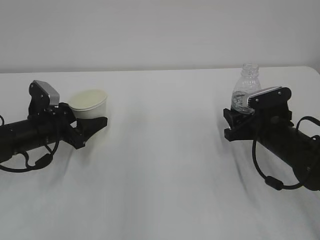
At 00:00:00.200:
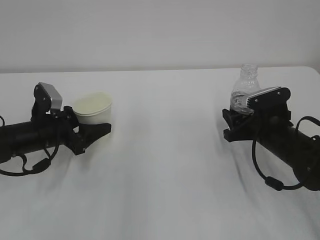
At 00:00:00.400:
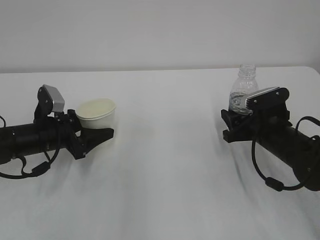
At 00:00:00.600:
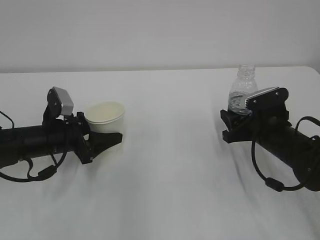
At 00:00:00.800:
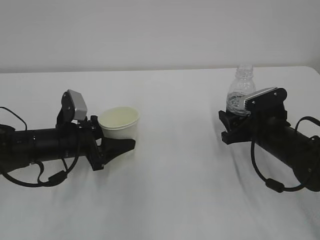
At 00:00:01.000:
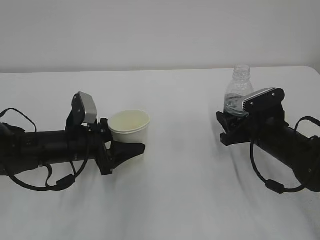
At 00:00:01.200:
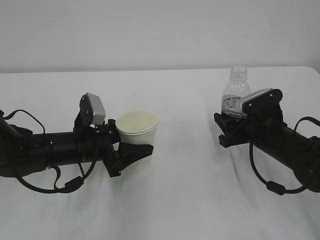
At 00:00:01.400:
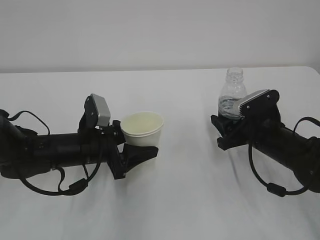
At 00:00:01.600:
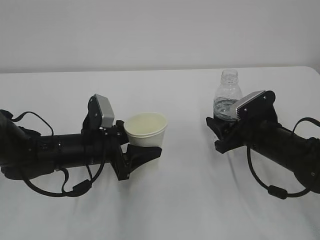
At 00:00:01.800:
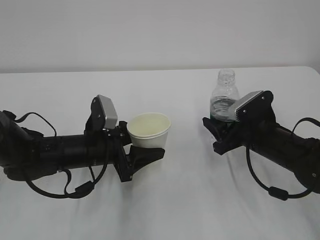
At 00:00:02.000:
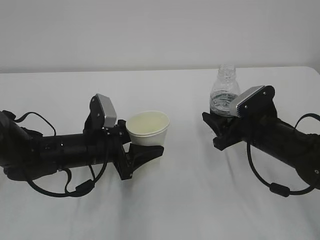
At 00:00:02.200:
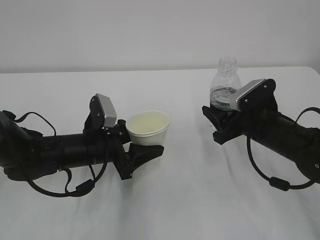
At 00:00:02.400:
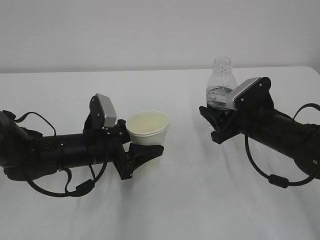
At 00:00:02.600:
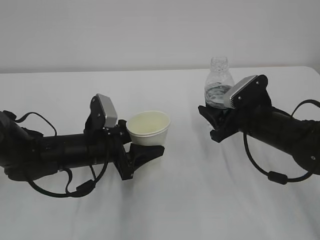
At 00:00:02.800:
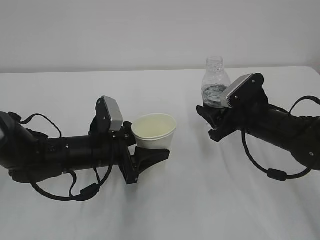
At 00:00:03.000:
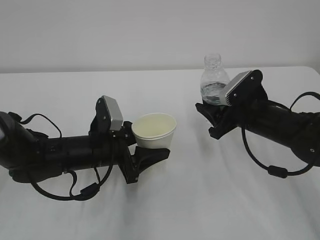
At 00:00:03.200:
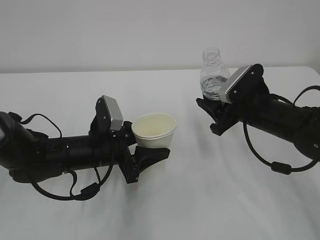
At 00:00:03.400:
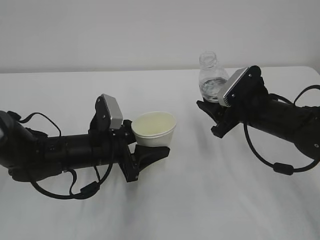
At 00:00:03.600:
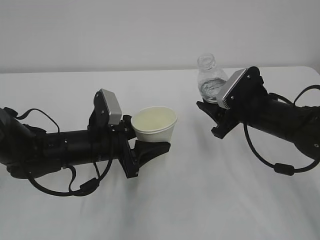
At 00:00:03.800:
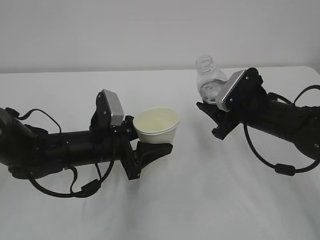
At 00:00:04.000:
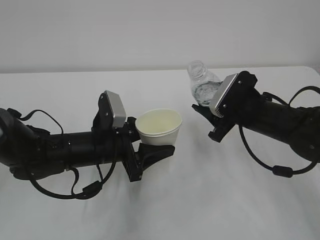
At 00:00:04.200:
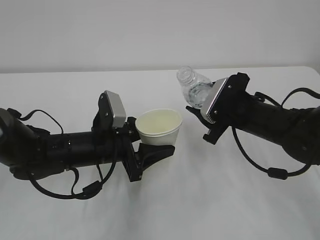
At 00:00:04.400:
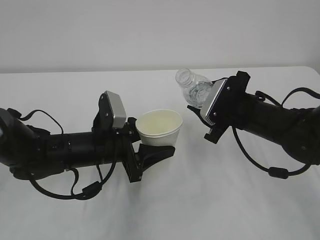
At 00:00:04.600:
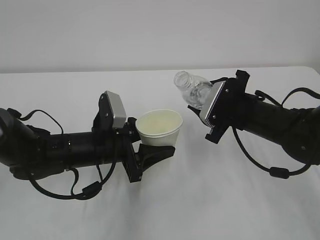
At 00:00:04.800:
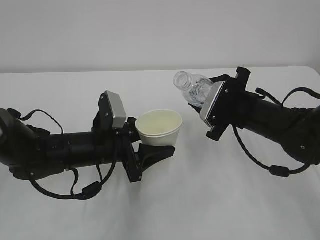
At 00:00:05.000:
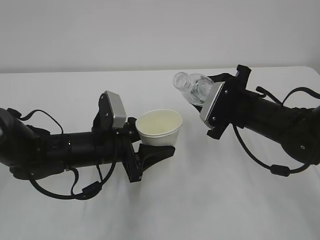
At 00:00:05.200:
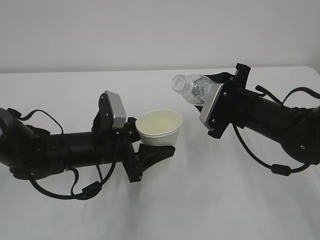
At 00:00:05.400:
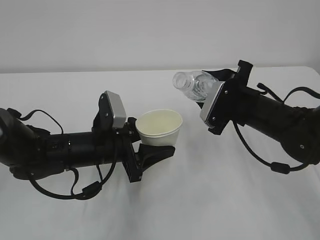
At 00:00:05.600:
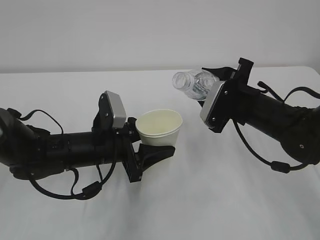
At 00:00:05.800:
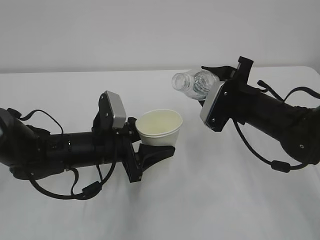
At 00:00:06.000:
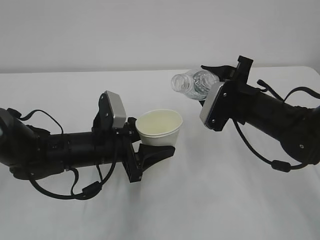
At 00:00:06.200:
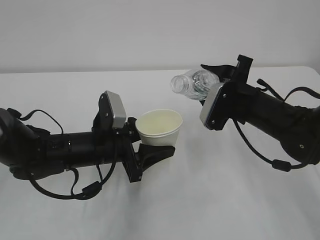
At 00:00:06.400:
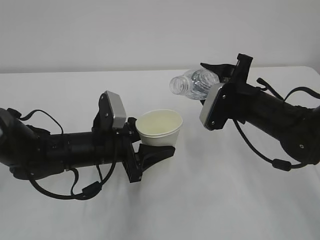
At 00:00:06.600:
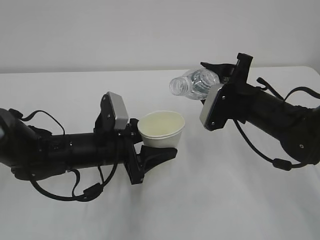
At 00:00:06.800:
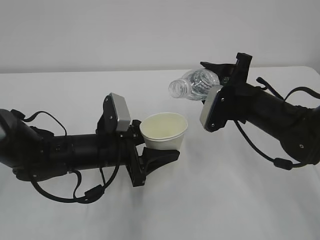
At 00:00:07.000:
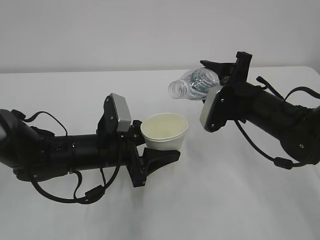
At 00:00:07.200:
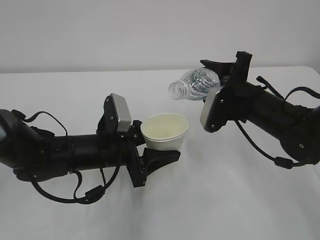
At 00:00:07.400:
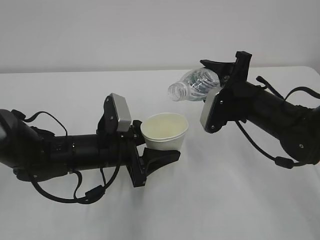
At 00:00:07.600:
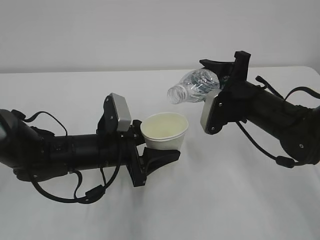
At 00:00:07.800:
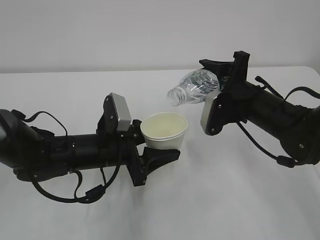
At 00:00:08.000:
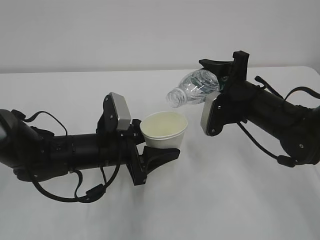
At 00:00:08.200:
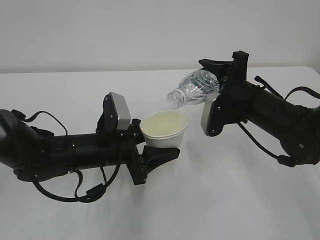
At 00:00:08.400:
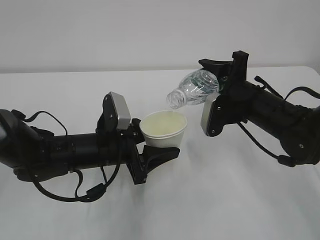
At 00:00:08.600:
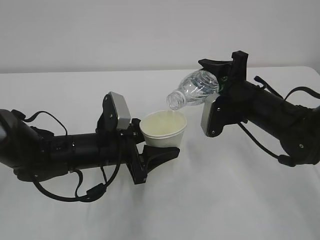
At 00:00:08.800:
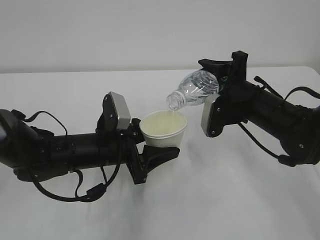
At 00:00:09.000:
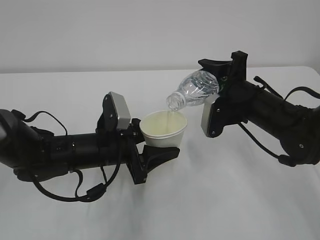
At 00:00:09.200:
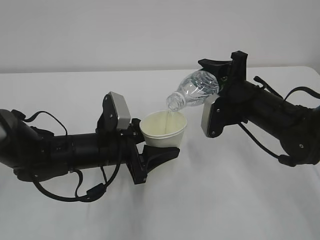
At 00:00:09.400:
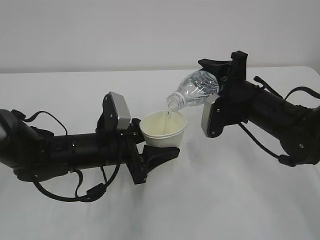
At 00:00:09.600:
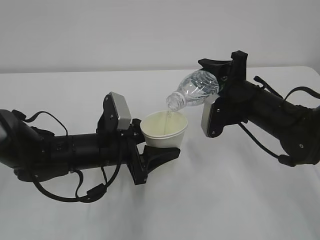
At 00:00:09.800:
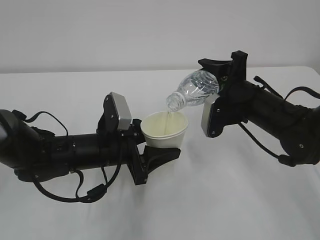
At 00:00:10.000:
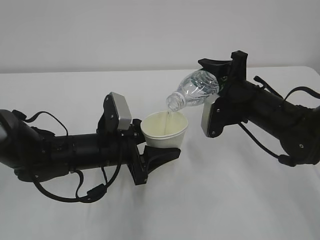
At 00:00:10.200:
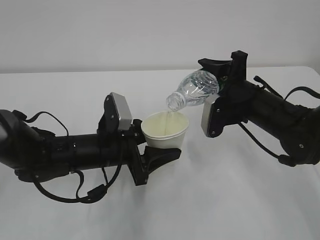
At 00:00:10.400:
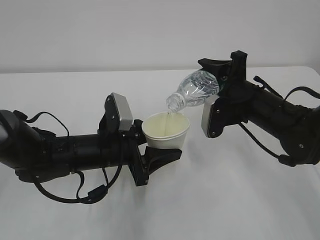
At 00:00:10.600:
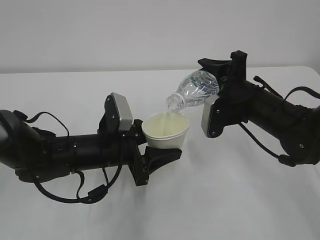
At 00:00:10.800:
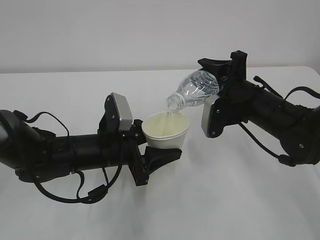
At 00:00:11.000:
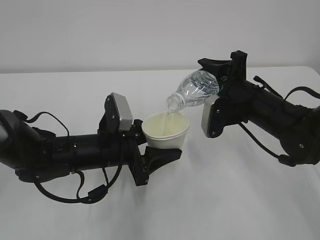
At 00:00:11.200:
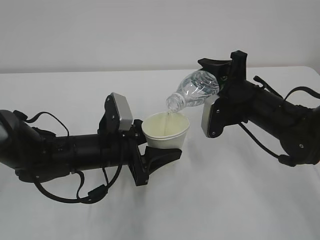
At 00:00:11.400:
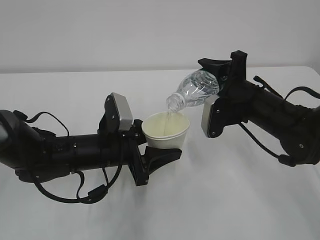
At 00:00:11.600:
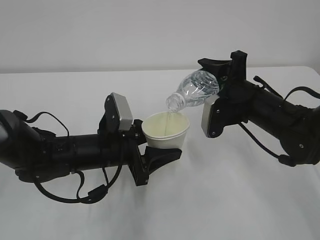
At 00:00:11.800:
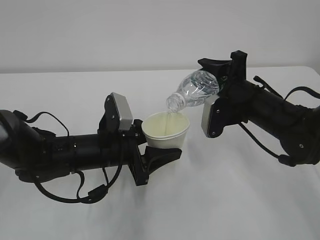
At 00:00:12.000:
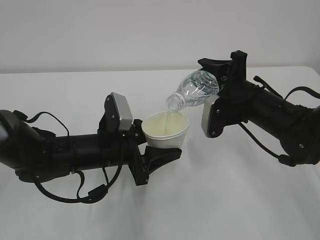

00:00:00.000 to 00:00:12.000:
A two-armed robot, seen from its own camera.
00:00:00.000 to 00:00:01.600: The left gripper shifts approximately 10 cm to the right.
00:00:01.600 to 00:00:03.000: The grippers move only a little.
00:00:06.000 to 00:00:07.600: The grippers stay close to where they were, moving slightly.
00:00:07.600 to 00:00:09.000: The grippers stay close to where they were, moving slightly.
00:00:09.000 to 00:00:12.000: Both grippers stay put.

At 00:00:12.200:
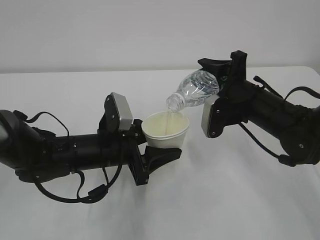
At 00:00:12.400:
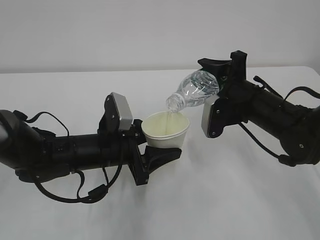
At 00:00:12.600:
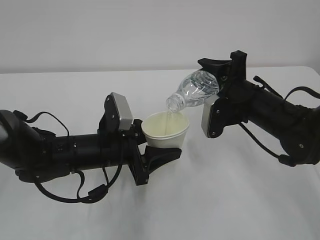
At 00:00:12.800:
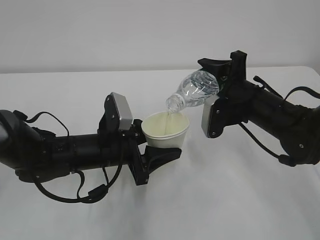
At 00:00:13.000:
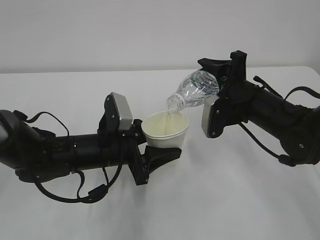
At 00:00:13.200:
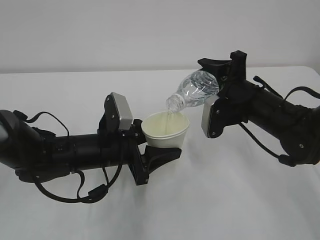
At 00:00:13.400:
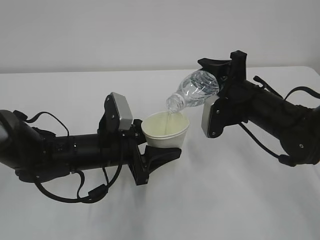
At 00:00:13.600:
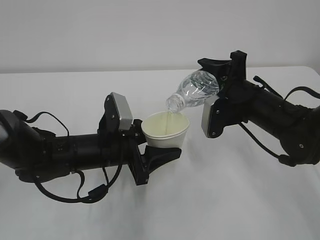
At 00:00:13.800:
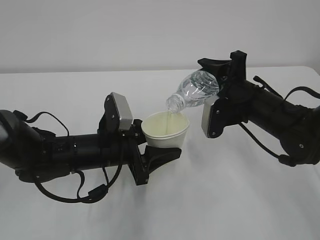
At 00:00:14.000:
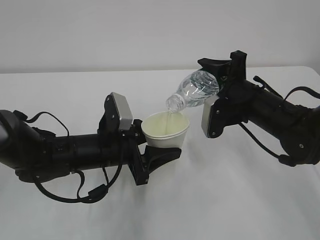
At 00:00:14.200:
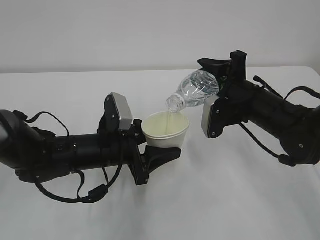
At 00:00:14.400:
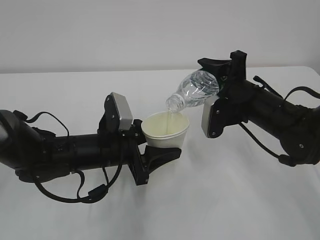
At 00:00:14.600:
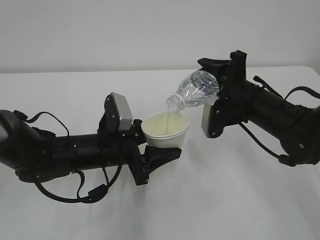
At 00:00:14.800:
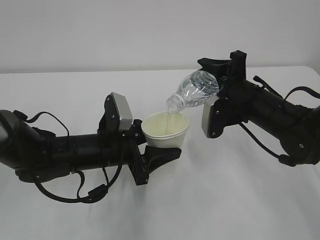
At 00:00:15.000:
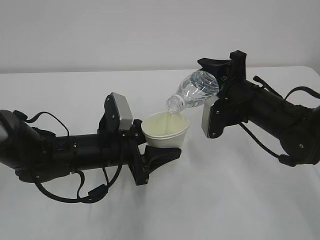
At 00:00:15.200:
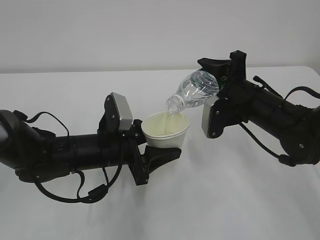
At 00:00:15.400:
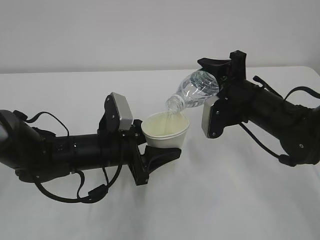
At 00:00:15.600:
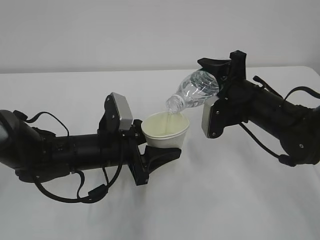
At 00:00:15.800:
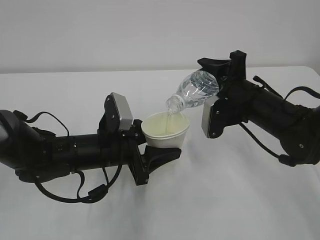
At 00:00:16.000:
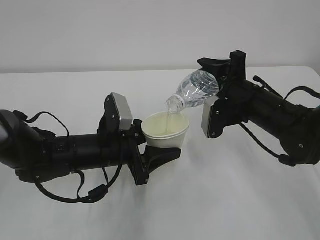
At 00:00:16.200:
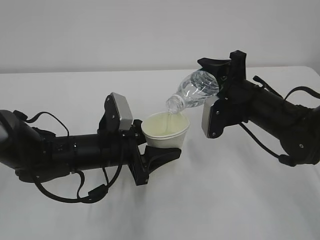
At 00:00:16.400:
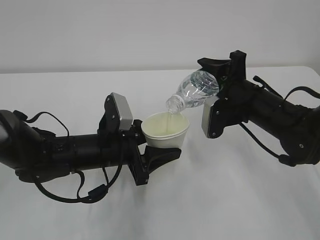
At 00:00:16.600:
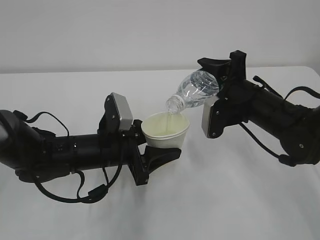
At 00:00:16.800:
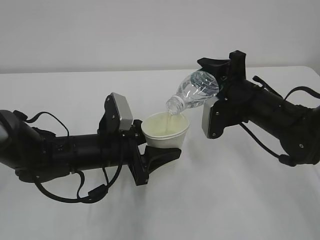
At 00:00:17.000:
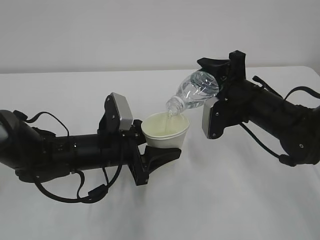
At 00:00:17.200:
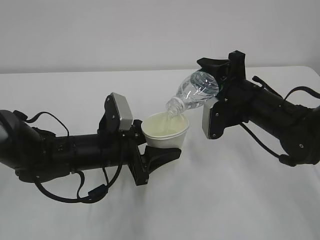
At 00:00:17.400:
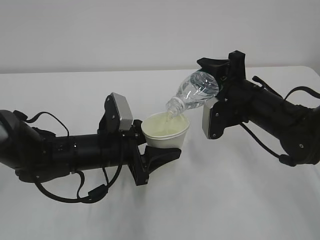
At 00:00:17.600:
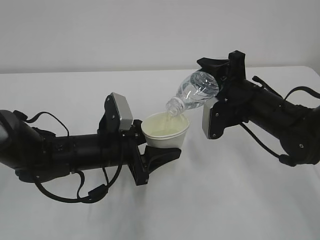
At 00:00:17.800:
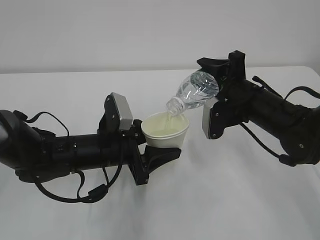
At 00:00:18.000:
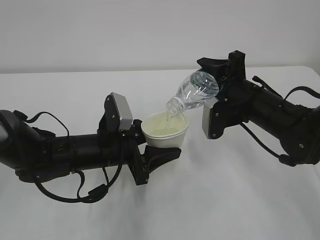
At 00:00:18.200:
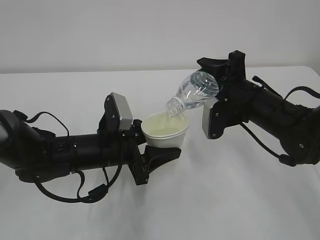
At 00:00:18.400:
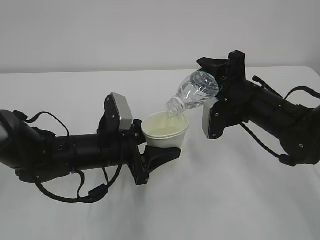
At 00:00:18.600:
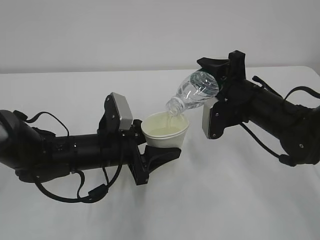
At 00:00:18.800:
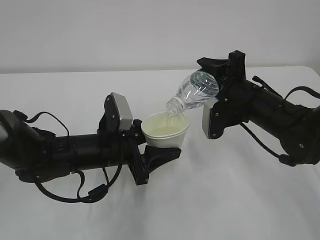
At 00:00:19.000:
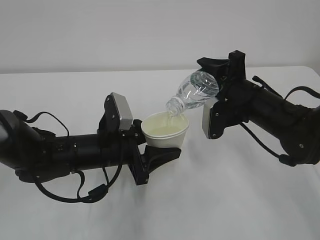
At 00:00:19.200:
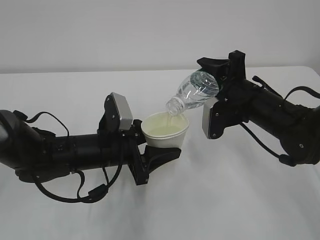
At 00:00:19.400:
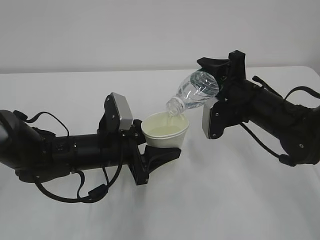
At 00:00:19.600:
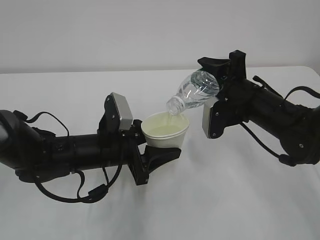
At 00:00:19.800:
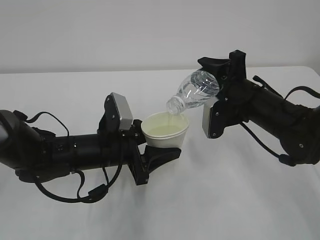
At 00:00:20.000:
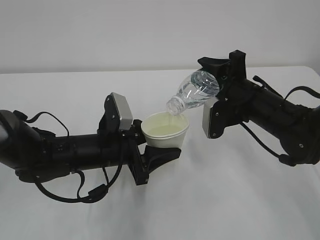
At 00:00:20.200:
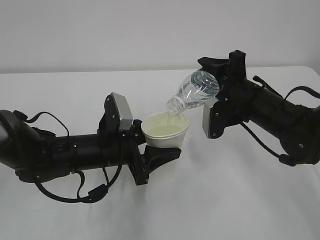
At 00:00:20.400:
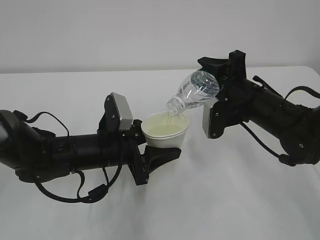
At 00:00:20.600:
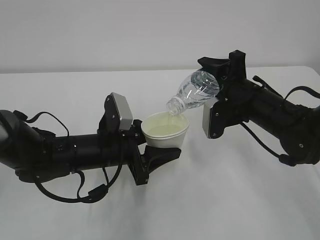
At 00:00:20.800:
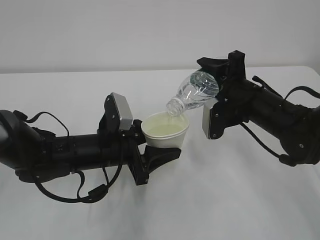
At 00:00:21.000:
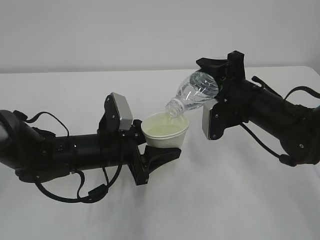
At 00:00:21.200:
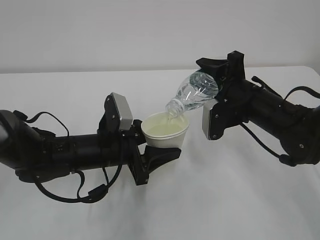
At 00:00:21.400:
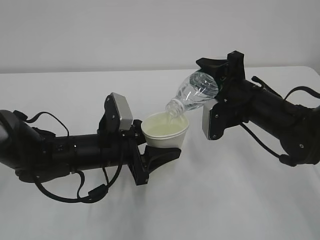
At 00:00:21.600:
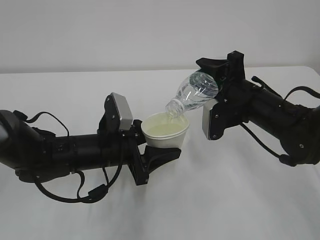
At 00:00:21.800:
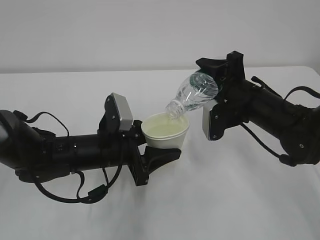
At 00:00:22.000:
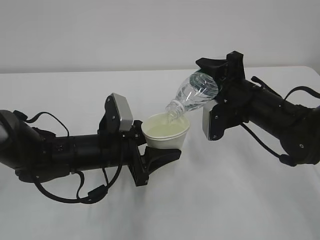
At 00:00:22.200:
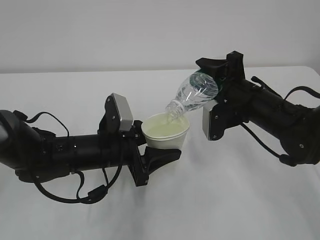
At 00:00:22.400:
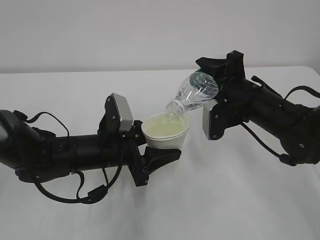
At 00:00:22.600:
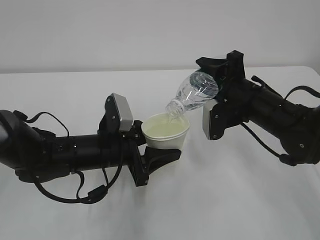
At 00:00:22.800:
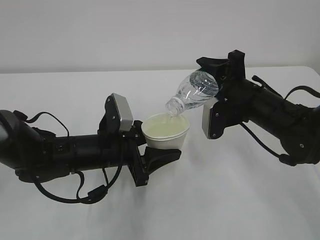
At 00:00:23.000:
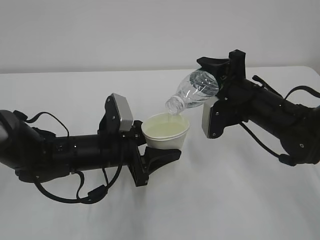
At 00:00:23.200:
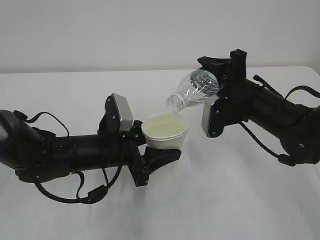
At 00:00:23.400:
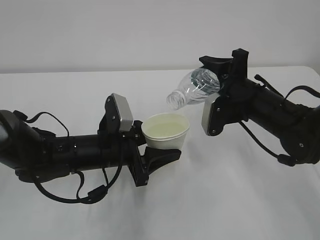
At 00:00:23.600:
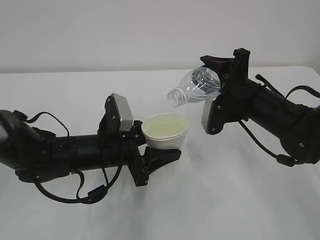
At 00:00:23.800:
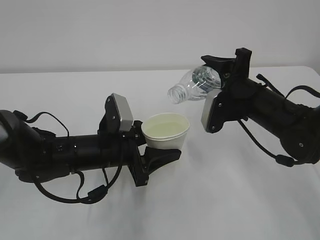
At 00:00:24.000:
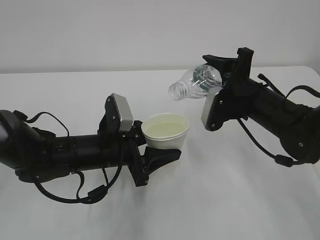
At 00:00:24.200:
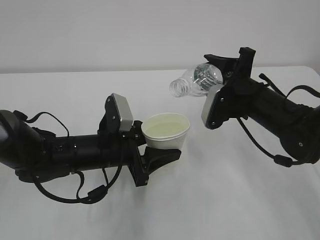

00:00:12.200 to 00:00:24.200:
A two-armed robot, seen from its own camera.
00:00:12.200 to 00:00:16.600: Both grippers stay about where they are.
00:00:16.600 to 00:00:21.200: Both grippers stay about where they are.
00:00:21.200 to 00:00:22.600: The two grippers keep their place.
00:00:22.600 to 00:00:24.200: The grippers stay close to where they were, moving slightly.
